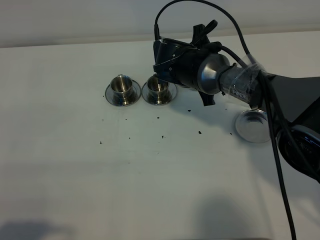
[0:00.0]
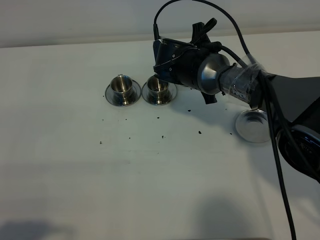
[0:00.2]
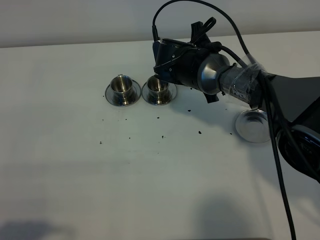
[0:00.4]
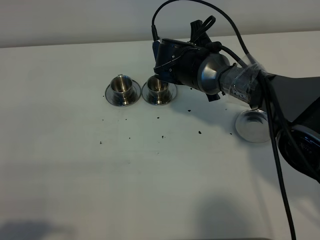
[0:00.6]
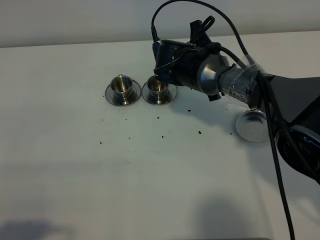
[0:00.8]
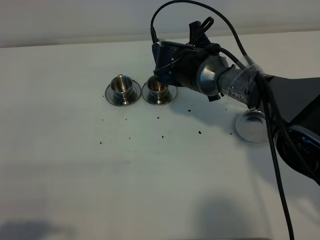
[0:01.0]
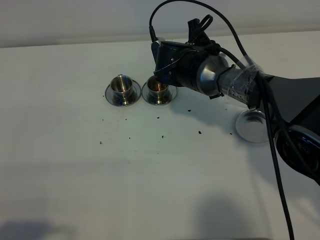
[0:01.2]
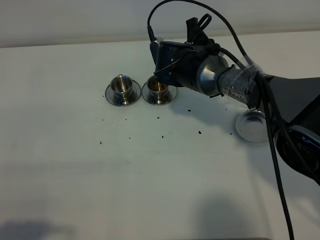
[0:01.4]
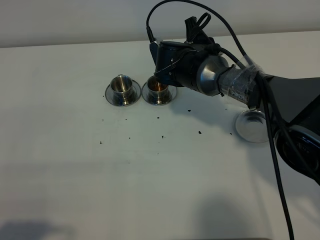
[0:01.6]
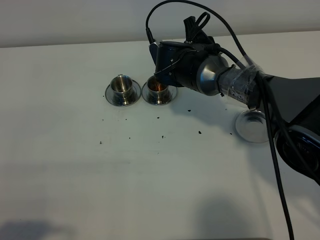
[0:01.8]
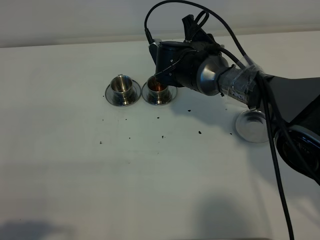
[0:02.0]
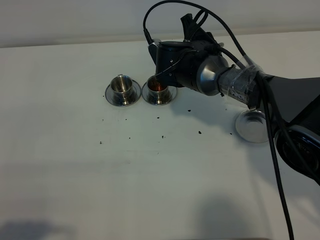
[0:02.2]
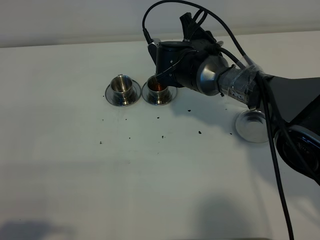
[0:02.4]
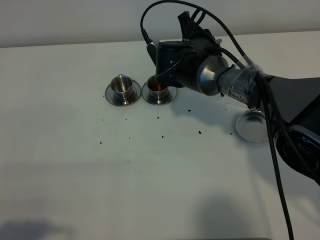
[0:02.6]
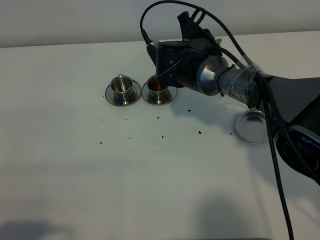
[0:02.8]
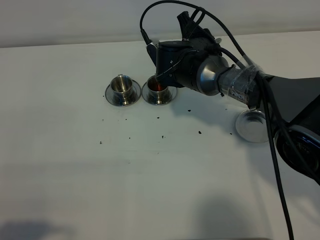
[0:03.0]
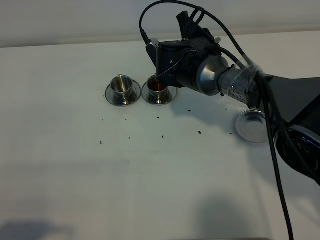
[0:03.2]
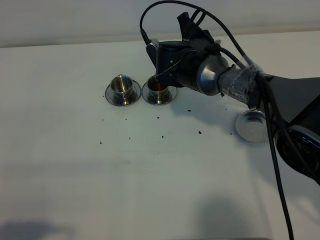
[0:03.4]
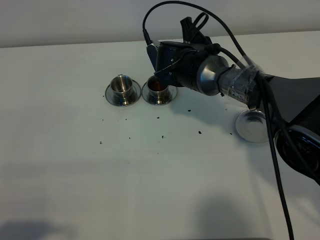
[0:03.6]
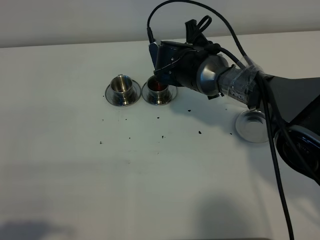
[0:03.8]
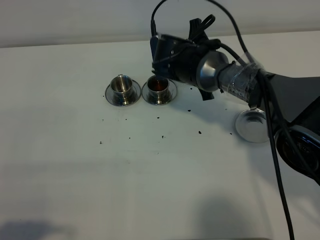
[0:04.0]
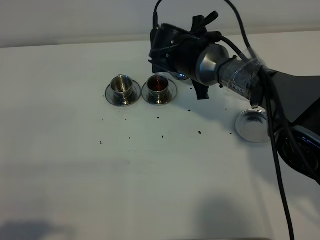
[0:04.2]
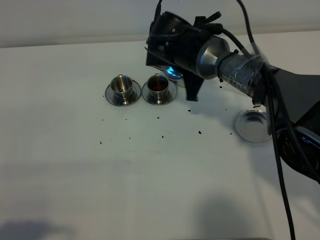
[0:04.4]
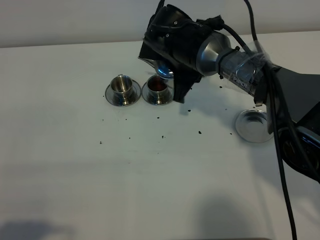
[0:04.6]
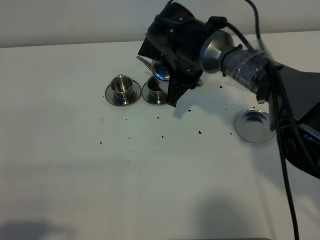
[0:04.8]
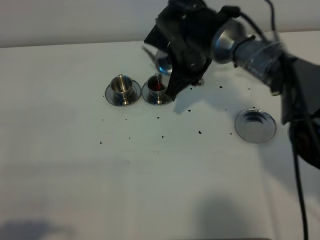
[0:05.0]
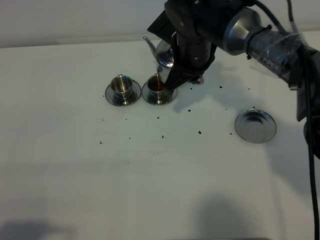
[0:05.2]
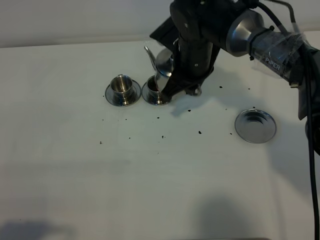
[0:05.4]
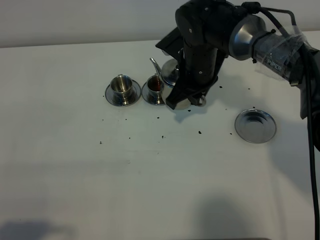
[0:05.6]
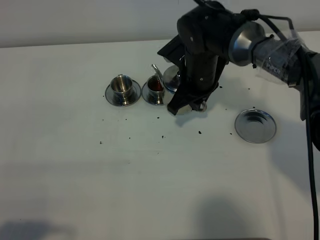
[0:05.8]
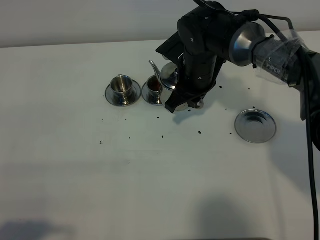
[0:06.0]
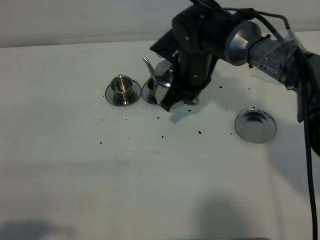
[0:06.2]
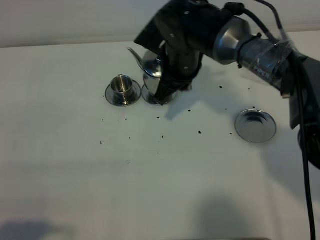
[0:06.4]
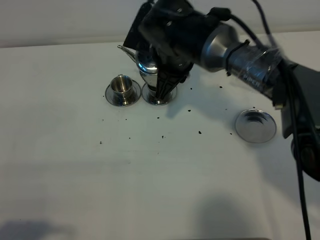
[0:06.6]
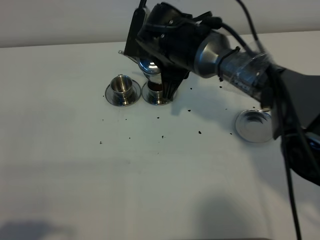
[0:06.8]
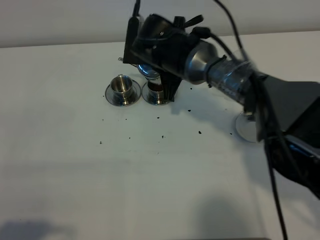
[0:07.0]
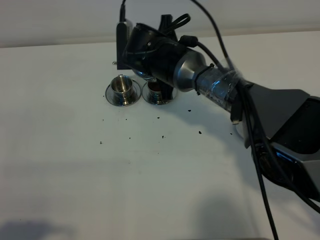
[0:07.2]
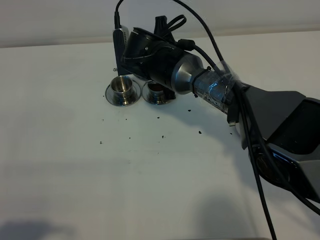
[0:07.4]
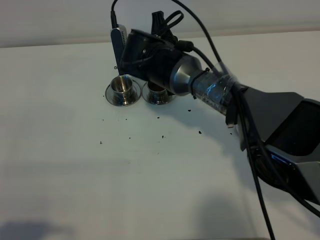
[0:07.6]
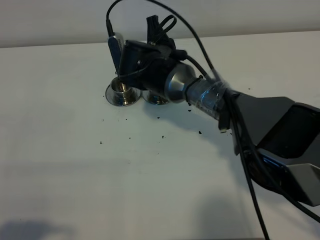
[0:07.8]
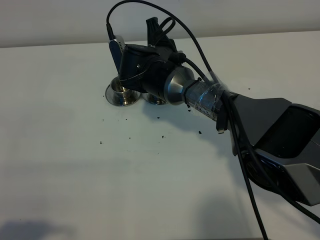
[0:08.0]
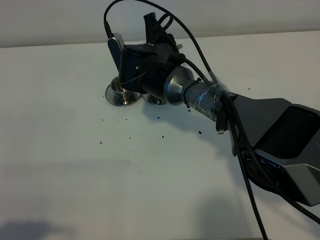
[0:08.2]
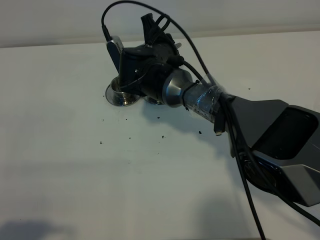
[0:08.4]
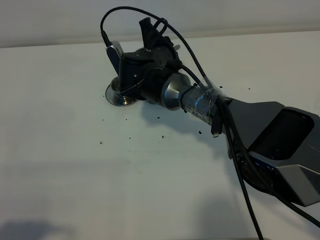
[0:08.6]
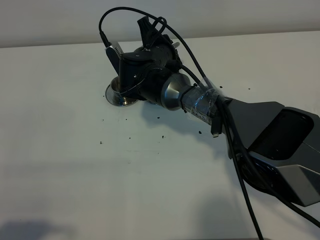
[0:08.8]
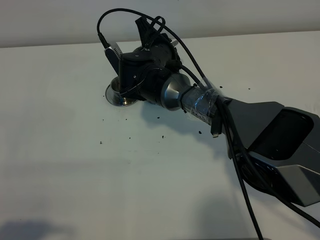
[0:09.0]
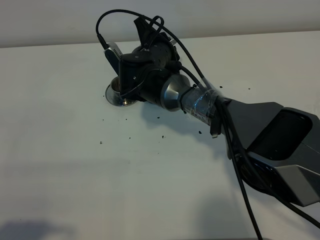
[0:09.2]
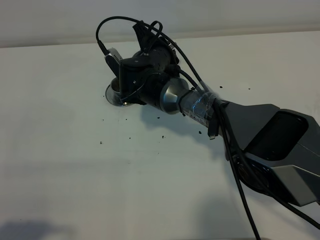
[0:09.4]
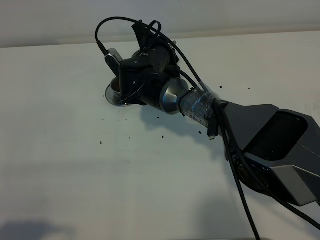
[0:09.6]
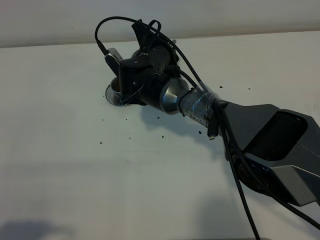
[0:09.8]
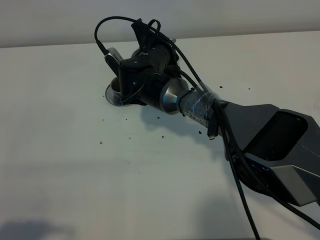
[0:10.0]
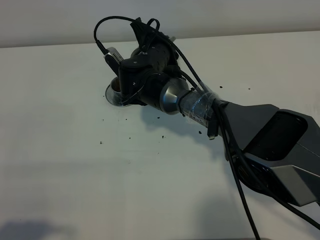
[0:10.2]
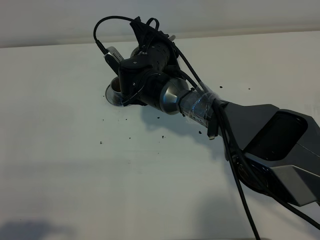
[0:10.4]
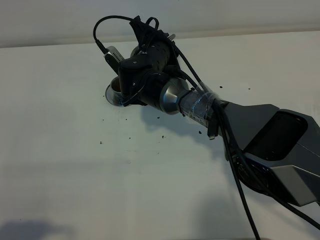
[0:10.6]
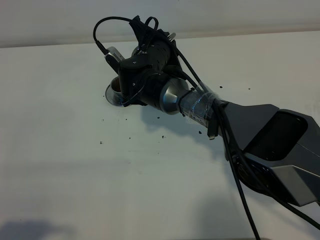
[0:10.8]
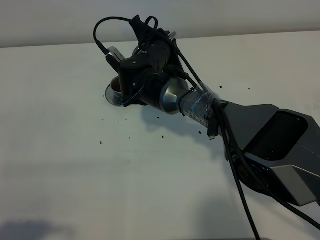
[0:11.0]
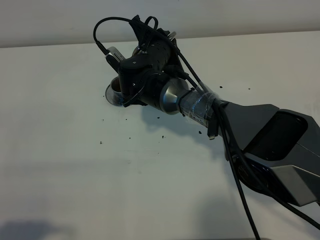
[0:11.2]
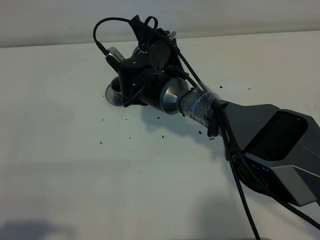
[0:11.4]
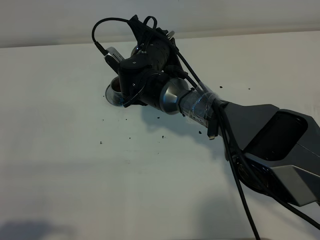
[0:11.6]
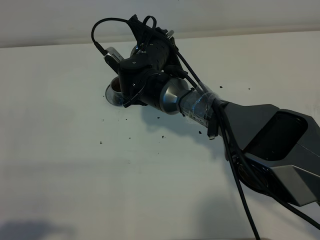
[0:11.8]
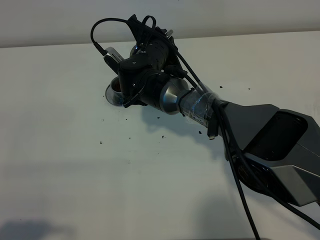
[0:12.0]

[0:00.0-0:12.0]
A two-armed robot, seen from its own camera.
Task of the whole recording: grasp the stainless steel teapot and pour the tea into the two stainless steel teacups one by one, put the stainless steel teapot back in its original place.
Step, 0:00.0 to 0:04.4: Pour tea into the teacup with the right gripper.
0:00.0 to 0:01.6: The grippers move only a little.
0:01.6 to 0:03.0: There are only small adjustments of the grippers.
0:06.0 to 0:07.6: The right gripper heads to the left, covering roughly 10 cm.
0:09.0 to 0:12.0: The grippers make only small movements.

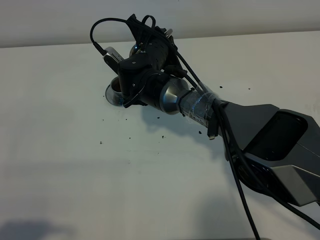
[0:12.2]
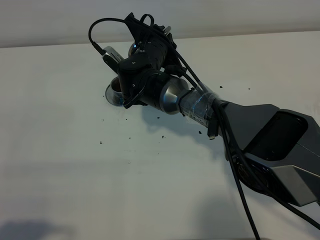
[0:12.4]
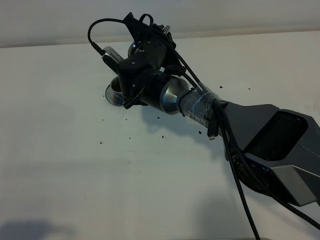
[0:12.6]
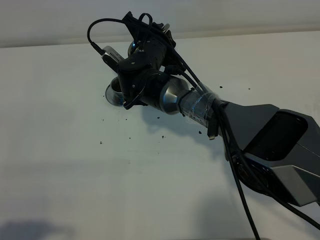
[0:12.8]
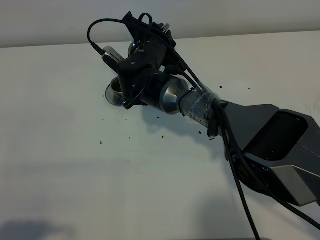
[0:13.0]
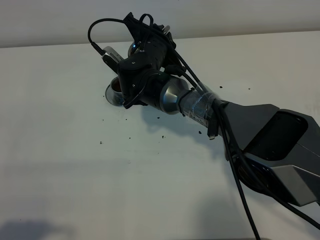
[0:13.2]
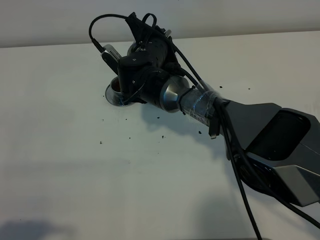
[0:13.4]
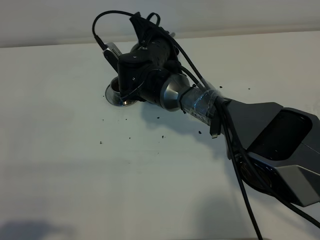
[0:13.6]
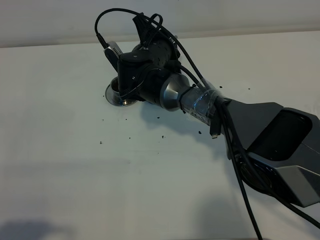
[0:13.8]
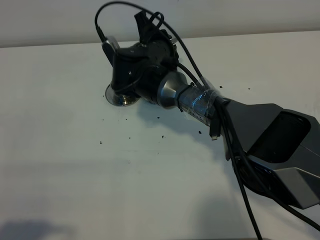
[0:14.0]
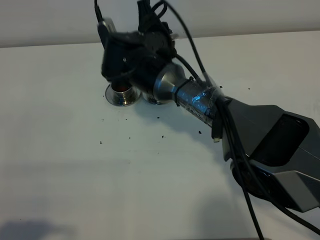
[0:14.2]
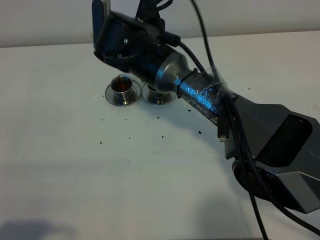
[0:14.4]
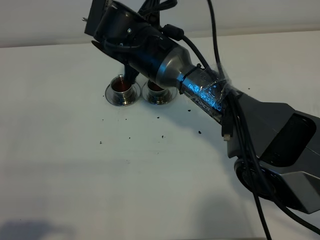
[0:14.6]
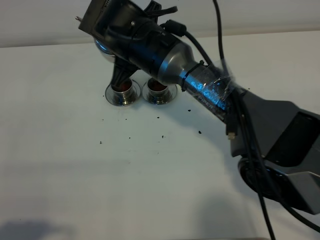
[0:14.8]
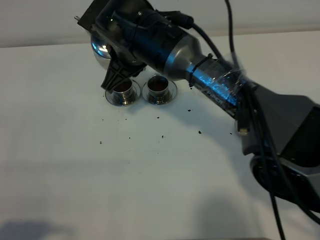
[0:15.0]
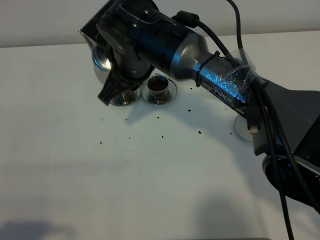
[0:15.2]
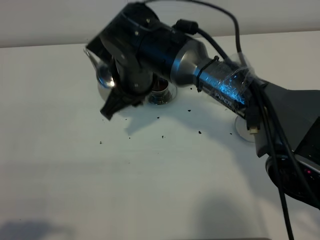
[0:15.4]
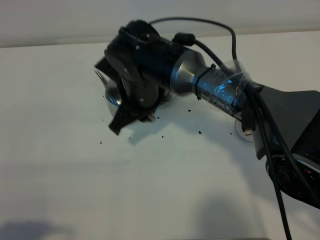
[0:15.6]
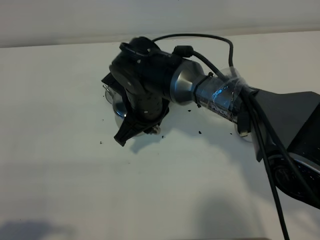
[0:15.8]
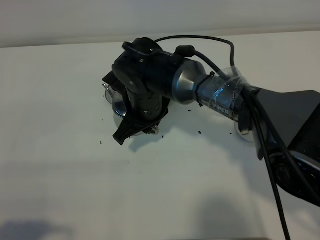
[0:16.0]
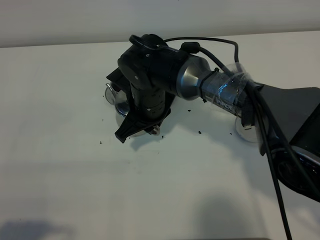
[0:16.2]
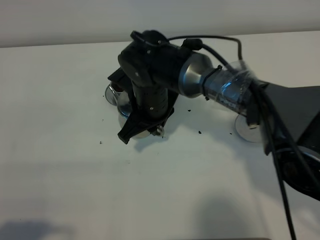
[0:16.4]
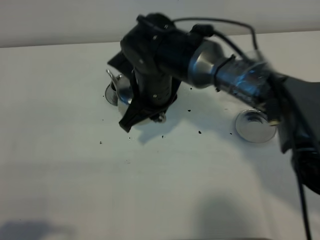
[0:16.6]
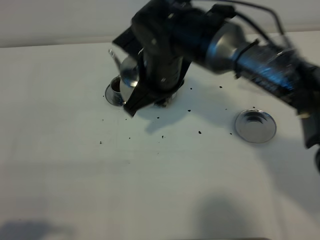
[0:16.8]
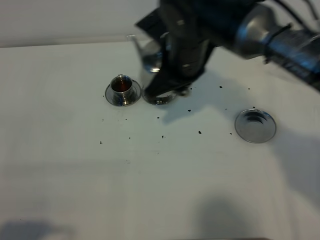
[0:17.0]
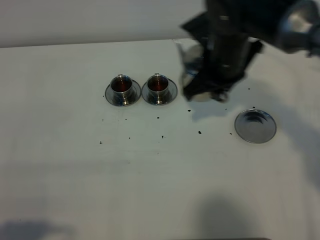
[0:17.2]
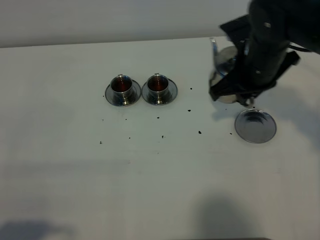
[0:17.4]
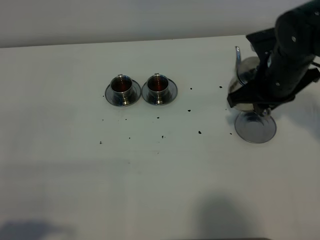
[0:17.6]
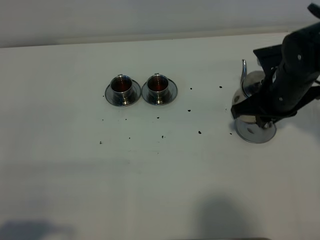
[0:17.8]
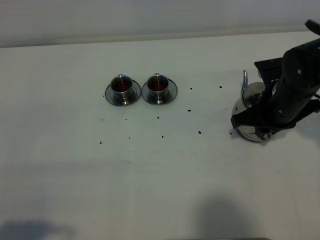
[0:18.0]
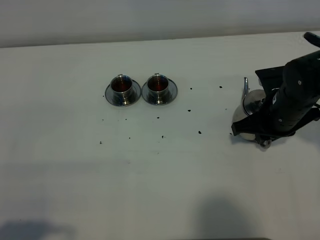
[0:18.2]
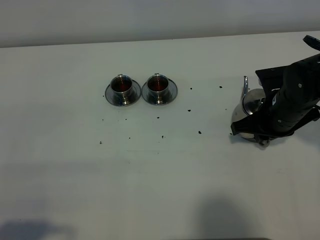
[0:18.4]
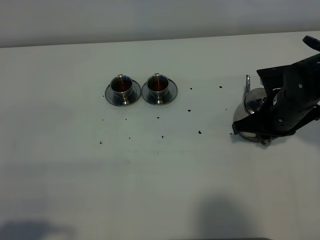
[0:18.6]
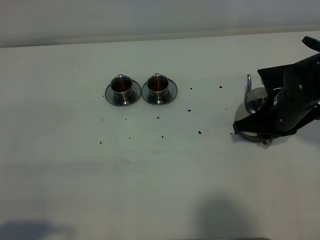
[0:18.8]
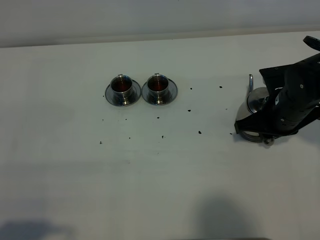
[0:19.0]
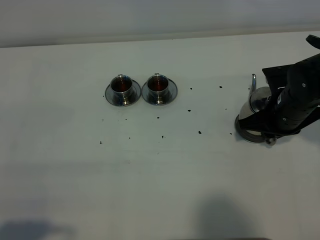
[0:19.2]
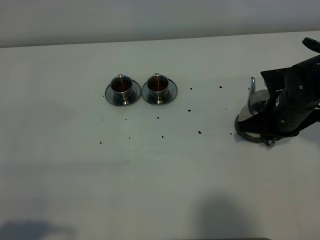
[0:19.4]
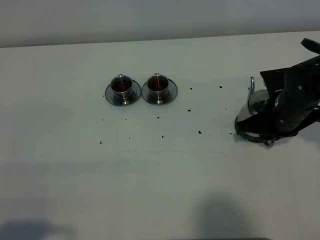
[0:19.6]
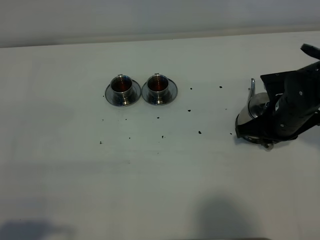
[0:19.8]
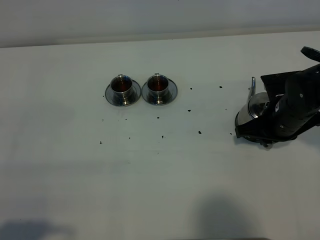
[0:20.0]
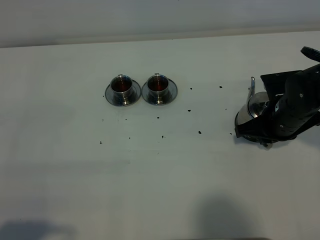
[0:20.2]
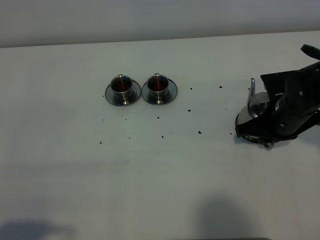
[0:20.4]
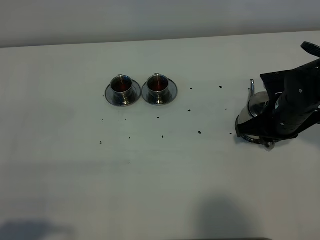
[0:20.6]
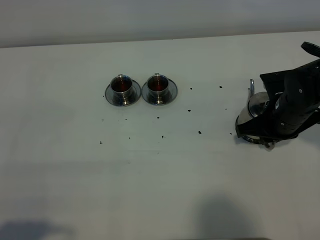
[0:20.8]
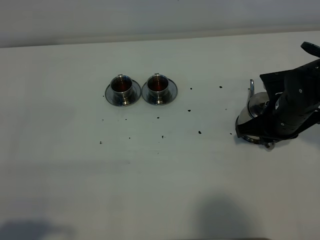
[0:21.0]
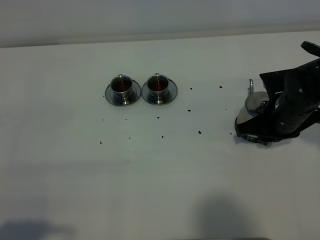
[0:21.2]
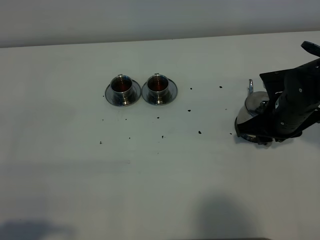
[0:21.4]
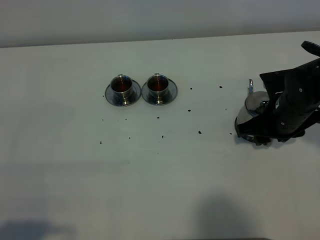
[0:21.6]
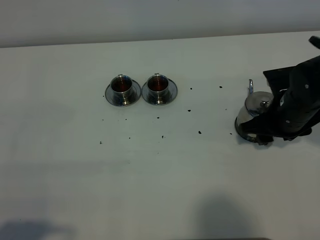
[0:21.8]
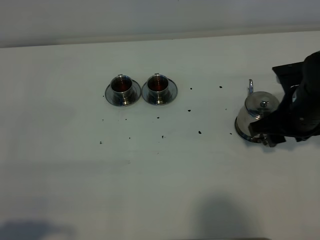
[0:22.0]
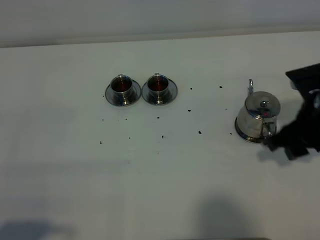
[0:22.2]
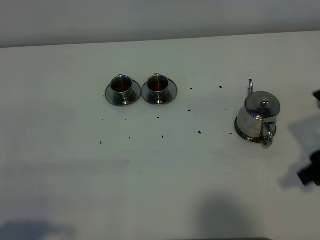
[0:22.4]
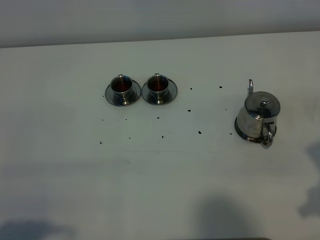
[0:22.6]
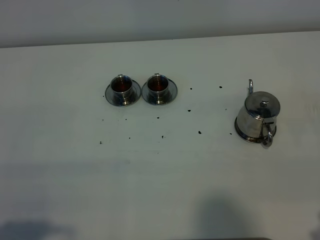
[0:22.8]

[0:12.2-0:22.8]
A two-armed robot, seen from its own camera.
Task of the whole recording: grasp the stainless steel teapot and pour the tea into the two stainless steel teacups one by one, put the stainless steel teapot back in its original place.
Step, 0:12.2 to 0:14.2: Pour tea into the teacup with the right gripper.
0:12.2 to 0:13.8: There are only small adjustments of the grippers.
0:13.8 to 0:15.2: The right gripper moves upward and backward, about 10 cm.
0:15.2 to 0:16.8: The right gripper shifts approximately 5 cm to the right, and goes downward and returns, some 10 cm each way.
0:16.8 to 0:18.2: The right gripper shifts some 25 cm to the right and downward.
0:18.2 to 0:19.8: The grippers move only a little.
0:19.8 to 0:21.2: The two grippers keep their place.
0:21.2 to 0:22.8: The right gripper travels backward and upward by about 25 cm, and opens up.
